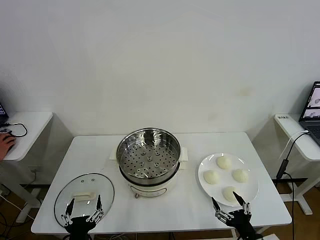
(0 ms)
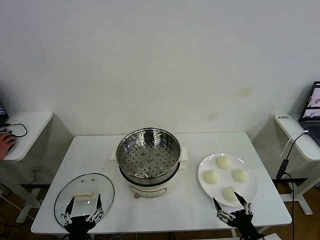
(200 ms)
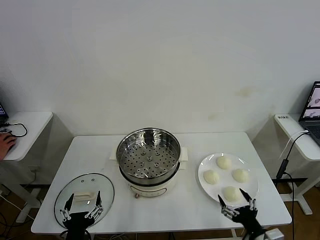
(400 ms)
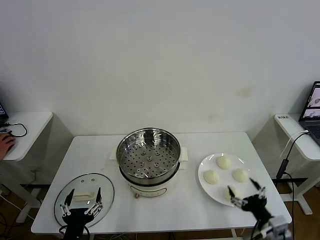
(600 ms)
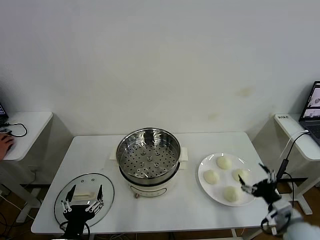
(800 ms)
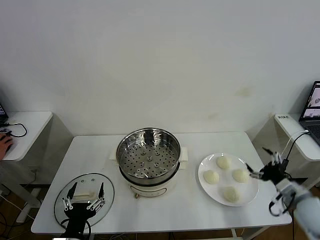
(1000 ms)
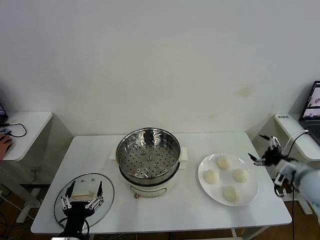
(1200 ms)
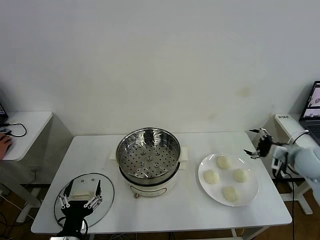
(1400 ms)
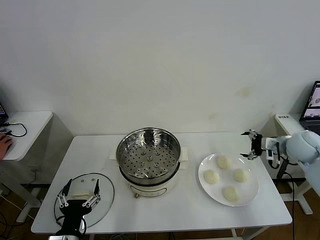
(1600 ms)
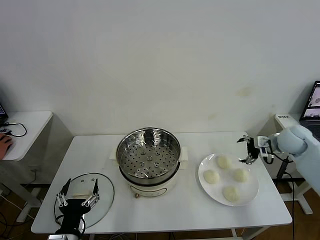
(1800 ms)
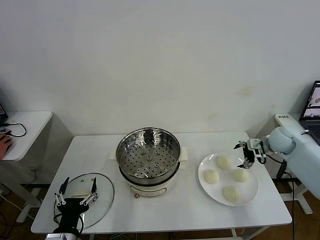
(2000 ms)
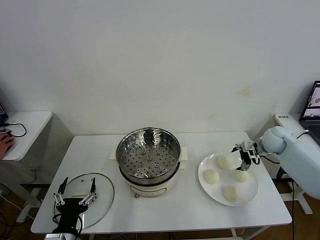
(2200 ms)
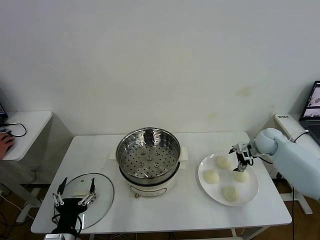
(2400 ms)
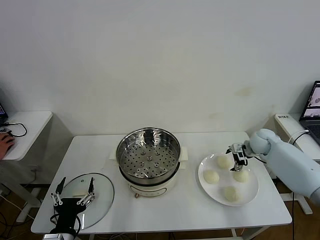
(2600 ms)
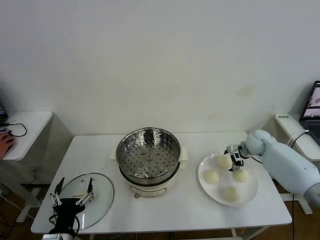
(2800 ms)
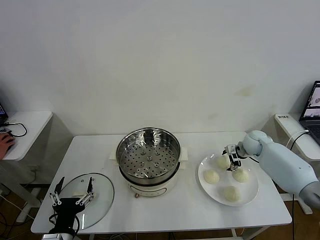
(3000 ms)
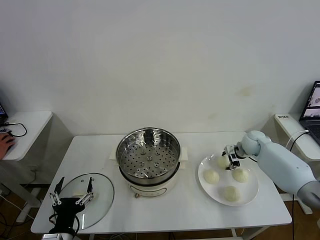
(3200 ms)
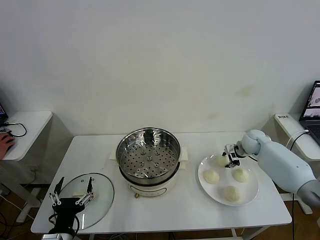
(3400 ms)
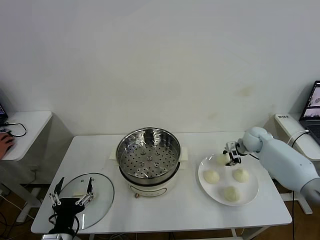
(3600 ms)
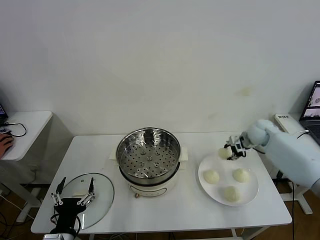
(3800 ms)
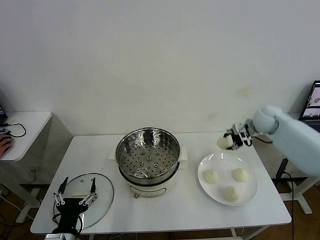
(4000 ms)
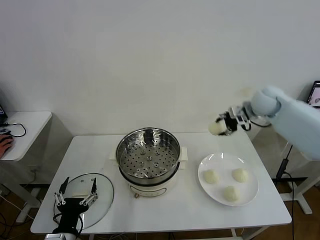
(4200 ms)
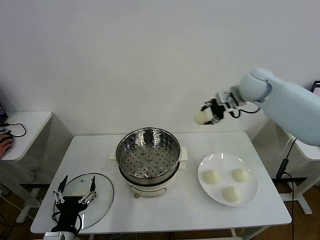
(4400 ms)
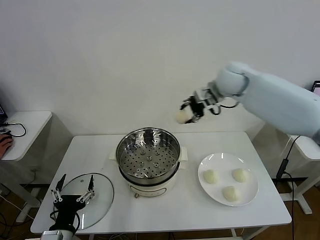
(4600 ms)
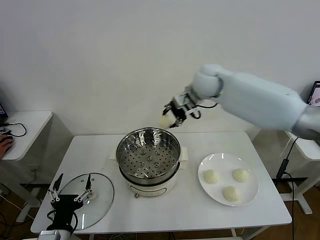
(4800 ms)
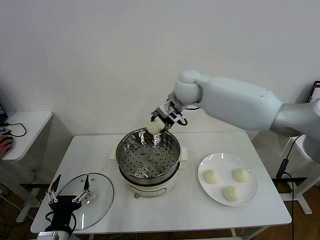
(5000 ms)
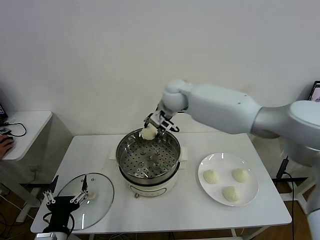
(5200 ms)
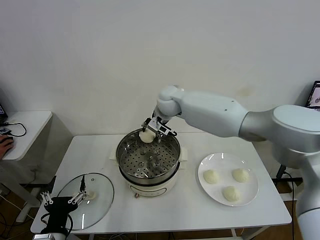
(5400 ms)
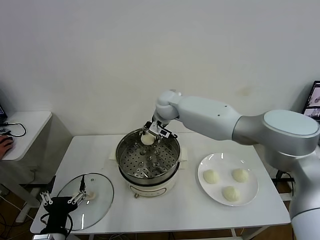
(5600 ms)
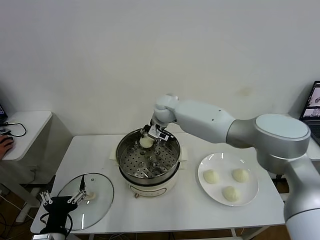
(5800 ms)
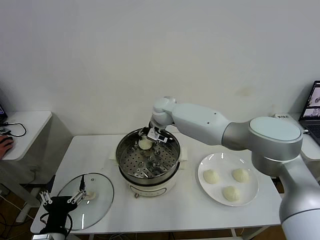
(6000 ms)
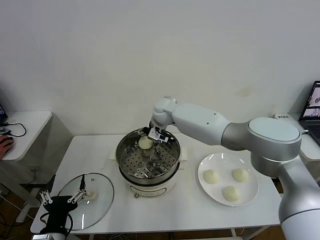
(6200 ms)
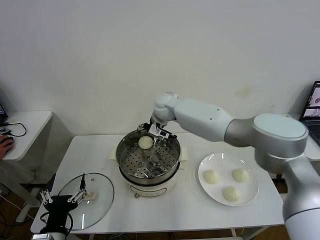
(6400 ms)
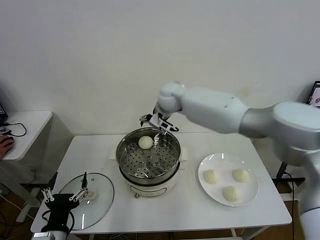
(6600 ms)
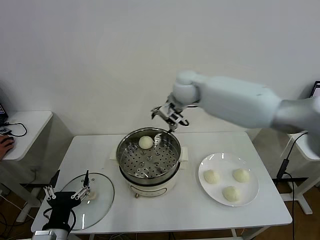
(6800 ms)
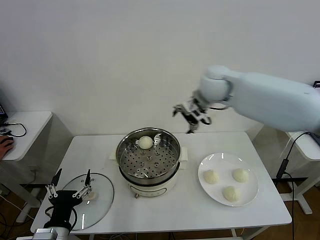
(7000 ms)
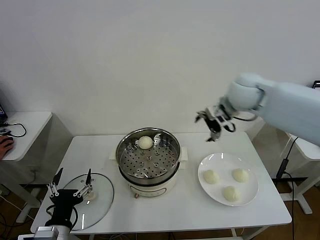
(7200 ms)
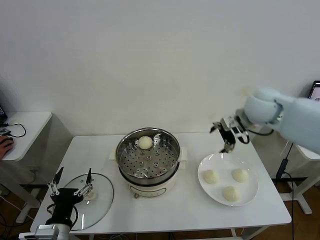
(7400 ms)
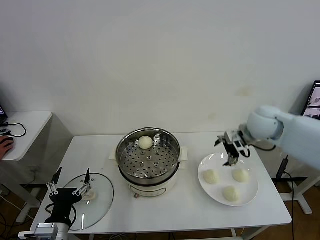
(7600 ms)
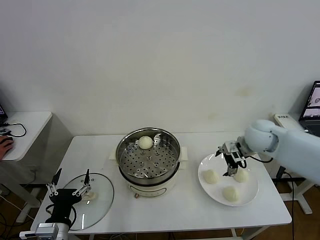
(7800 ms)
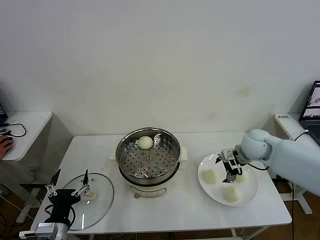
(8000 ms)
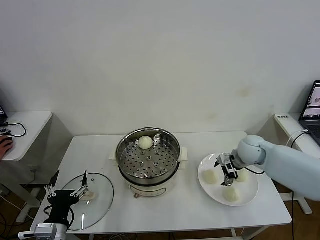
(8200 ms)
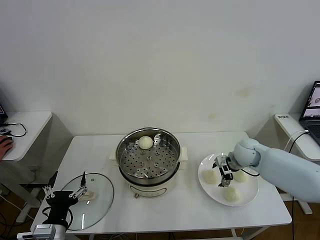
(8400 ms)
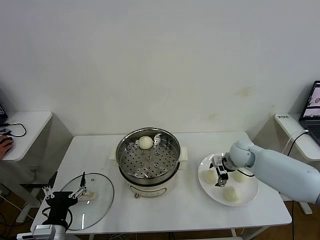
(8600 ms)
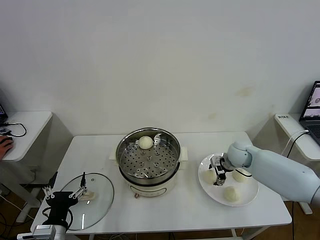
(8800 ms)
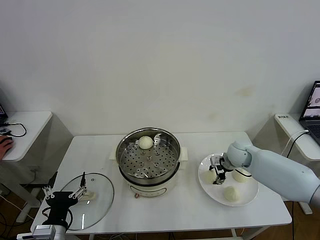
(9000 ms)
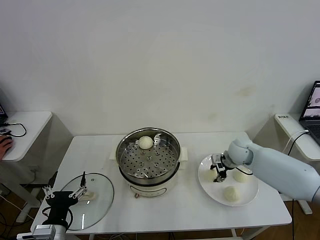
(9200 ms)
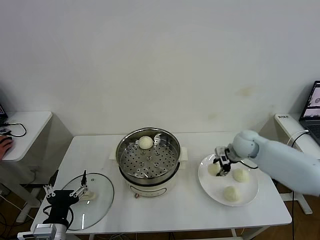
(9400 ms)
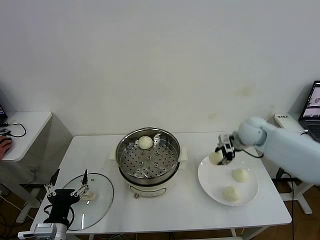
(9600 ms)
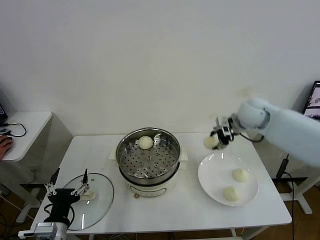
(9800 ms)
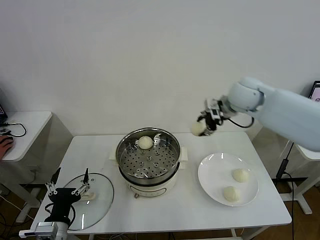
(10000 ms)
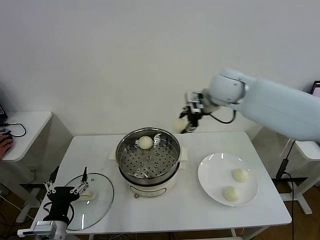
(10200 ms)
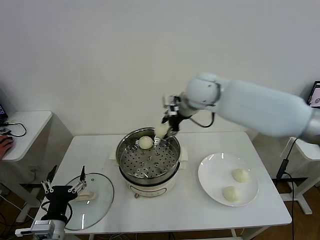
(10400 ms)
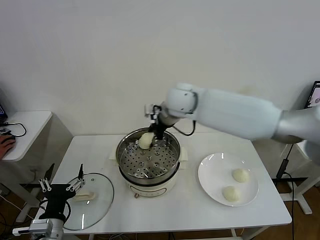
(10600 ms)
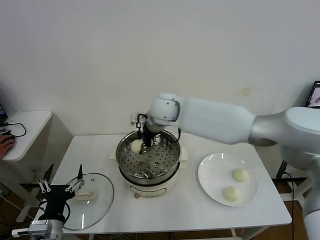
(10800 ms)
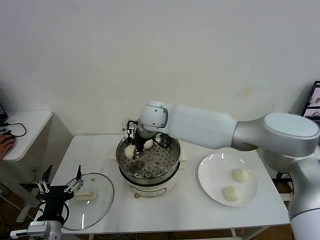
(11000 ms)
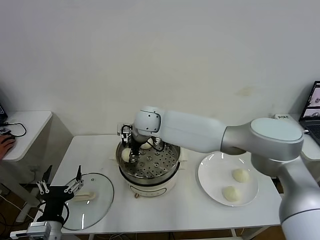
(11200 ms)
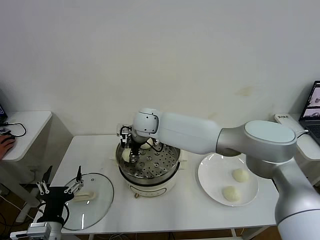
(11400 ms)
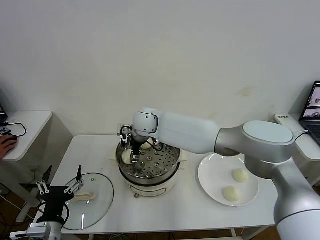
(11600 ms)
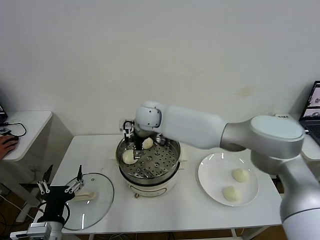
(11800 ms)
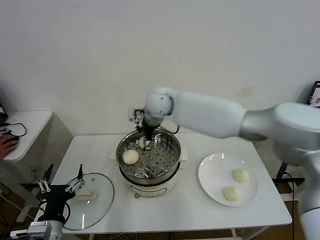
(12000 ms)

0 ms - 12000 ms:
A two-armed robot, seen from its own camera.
Task of the whole recording: take steamed baozi put them in steamer then cover it.
Step, 0 ms - 3200 ms: Grasp the baozi in the plate with right gripper.
Step, 3400 ms - 6200 ms: Place the baozi on the steamer with right gripper.
Step, 6400 ms - 9000 ms: Grasp the baozi in the plate with right gripper.
Step, 9200 ms - 11600 ms: Place the baozi on the steamer with right gripper.
1600 ms - 3000 ms: The right gripper heads downward, forward and to the left, covering about 15 cm.
3000 ms - 4400 ms: The right gripper shifts roughly 30 cm upward and to the left, and closes its fingers.
4400 ms - 6000 ms: The right gripper travels to the left and downward by some 25 cm, and opens its fingers.
6000 ms - 7600 ms: The right gripper goes roughly 30 cm to the right and backward, and opens up.
7600 ms - 9000 ms: The right gripper shifts about 15 cm downward, and closes up.
9000 ms - 10400 ms: The right gripper shifts roughly 30 cm upward and to the left.
10400 ms - 12000 ms: The right gripper is displaced to the left by about 5 cm, and opens up.

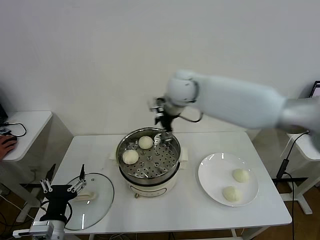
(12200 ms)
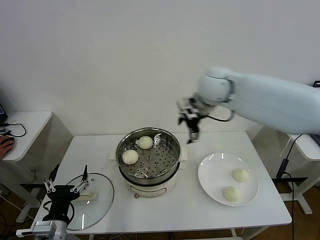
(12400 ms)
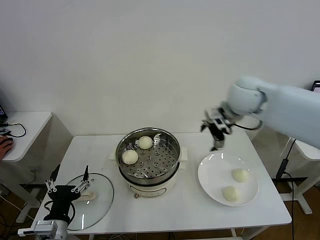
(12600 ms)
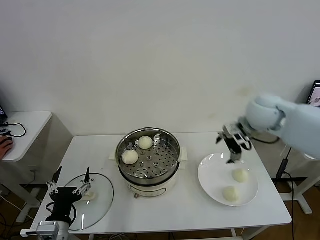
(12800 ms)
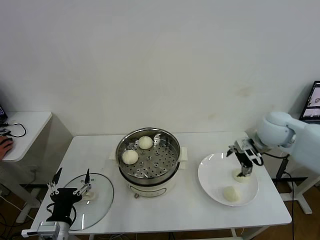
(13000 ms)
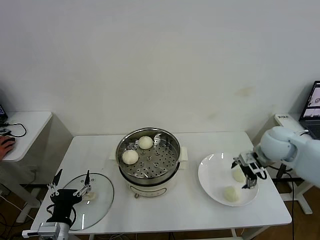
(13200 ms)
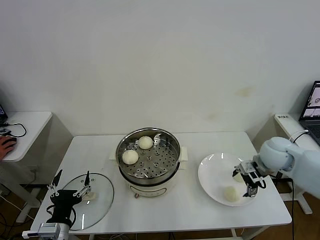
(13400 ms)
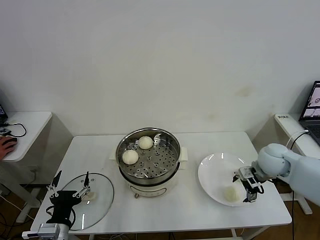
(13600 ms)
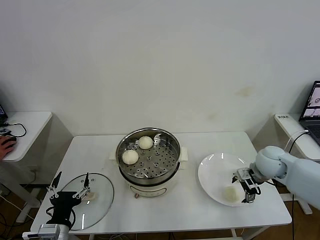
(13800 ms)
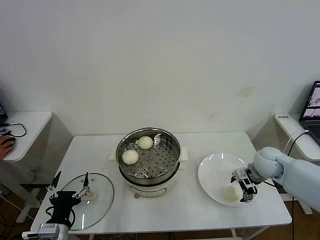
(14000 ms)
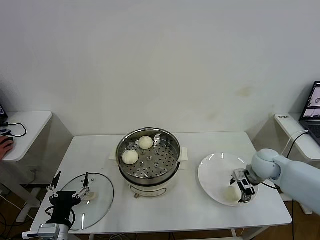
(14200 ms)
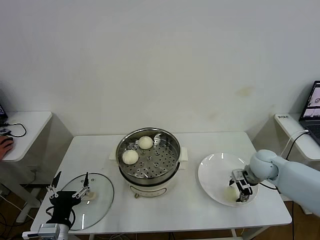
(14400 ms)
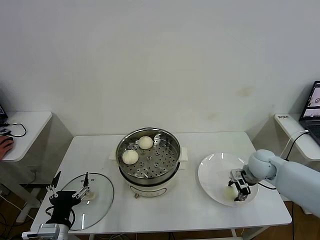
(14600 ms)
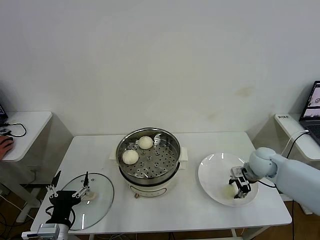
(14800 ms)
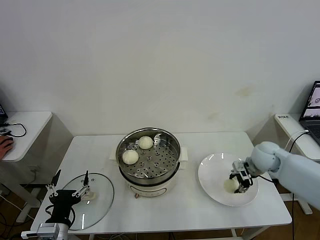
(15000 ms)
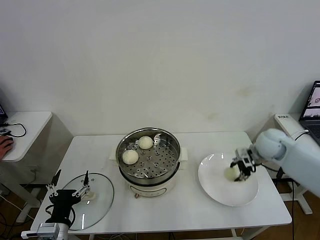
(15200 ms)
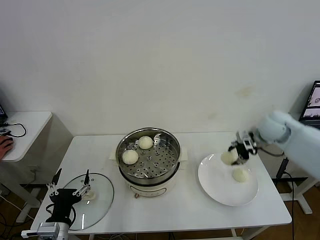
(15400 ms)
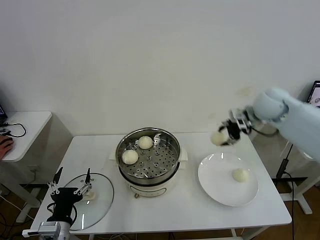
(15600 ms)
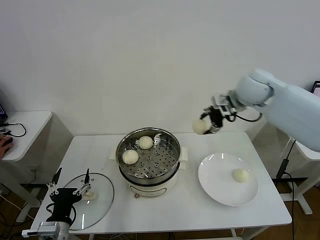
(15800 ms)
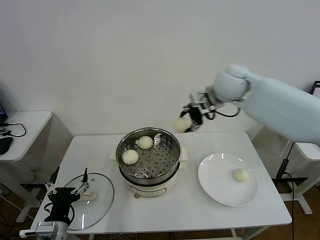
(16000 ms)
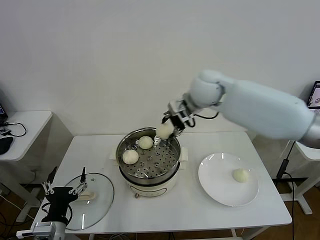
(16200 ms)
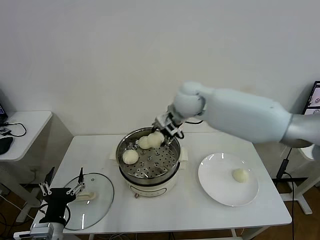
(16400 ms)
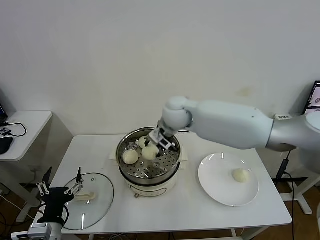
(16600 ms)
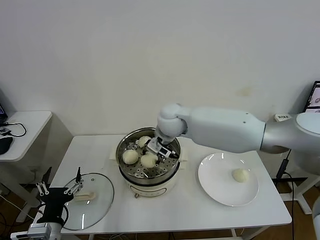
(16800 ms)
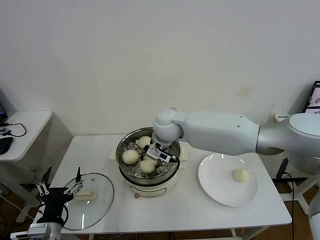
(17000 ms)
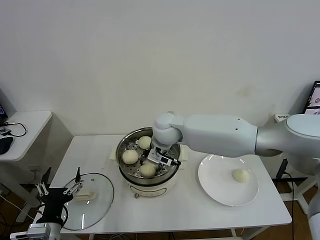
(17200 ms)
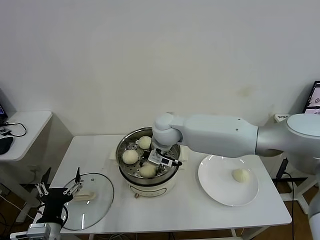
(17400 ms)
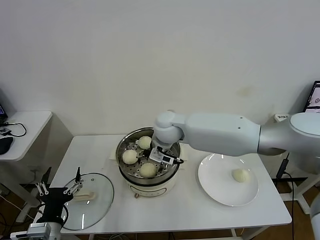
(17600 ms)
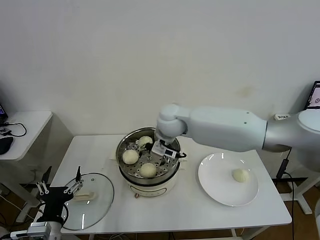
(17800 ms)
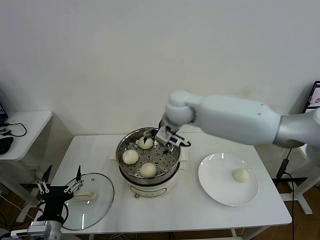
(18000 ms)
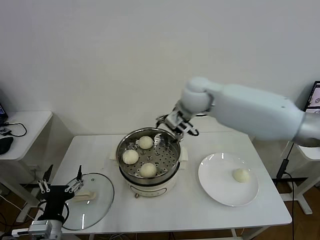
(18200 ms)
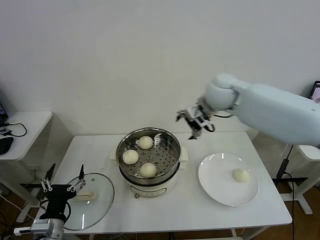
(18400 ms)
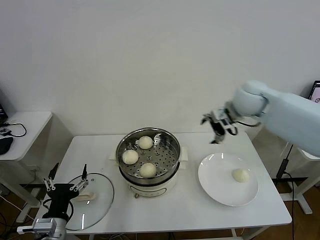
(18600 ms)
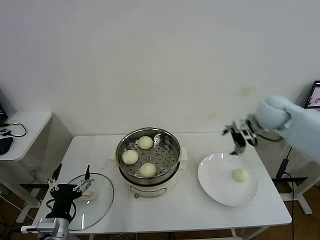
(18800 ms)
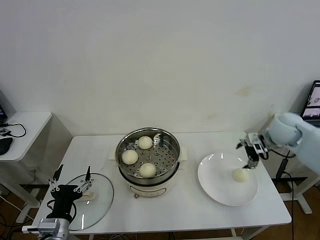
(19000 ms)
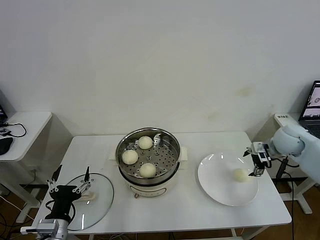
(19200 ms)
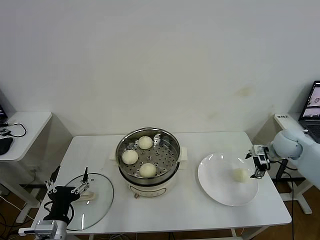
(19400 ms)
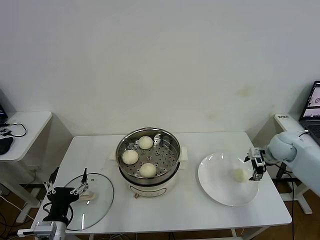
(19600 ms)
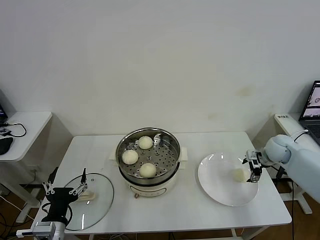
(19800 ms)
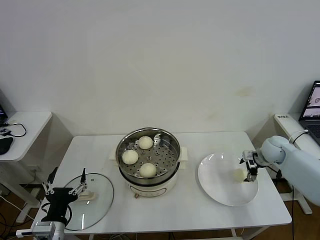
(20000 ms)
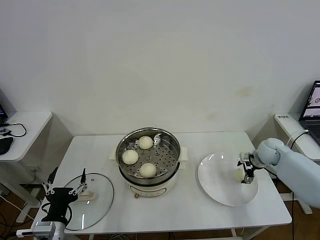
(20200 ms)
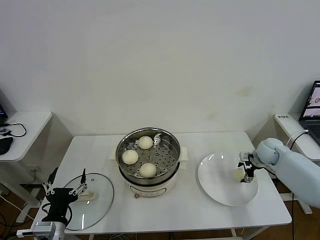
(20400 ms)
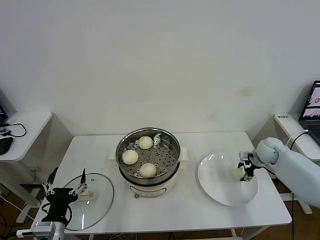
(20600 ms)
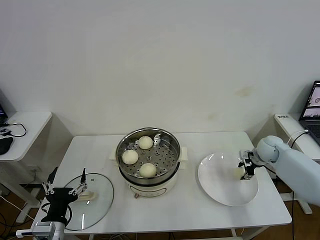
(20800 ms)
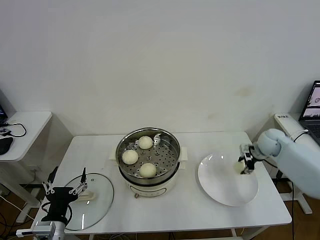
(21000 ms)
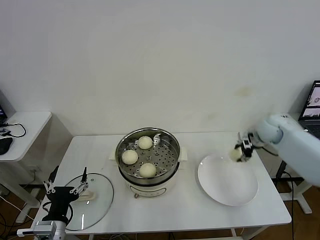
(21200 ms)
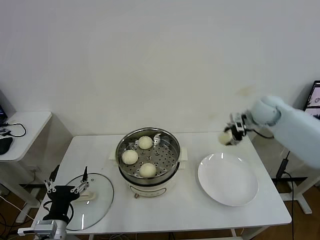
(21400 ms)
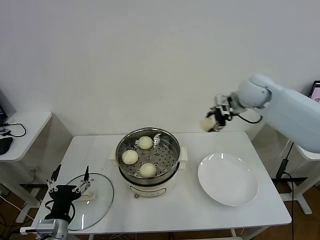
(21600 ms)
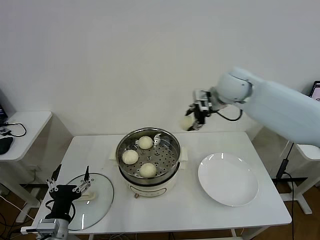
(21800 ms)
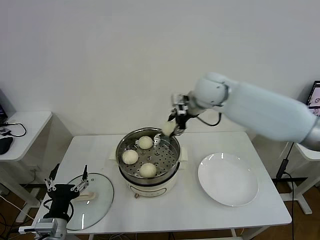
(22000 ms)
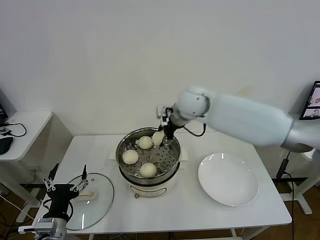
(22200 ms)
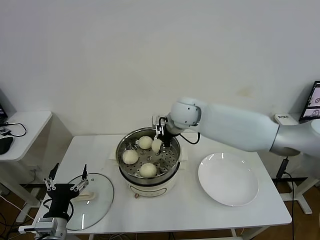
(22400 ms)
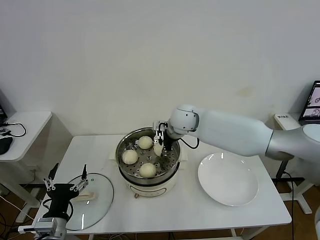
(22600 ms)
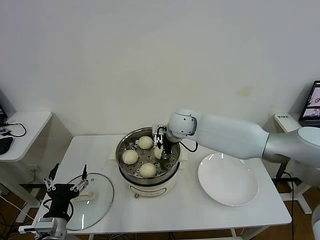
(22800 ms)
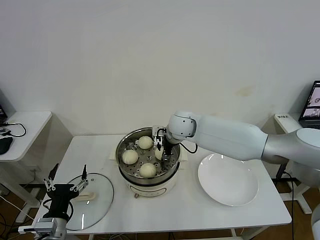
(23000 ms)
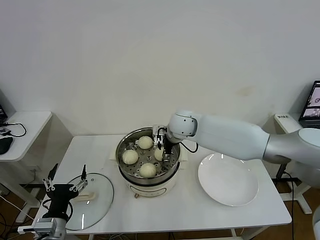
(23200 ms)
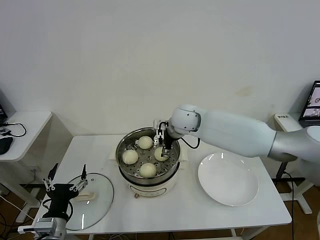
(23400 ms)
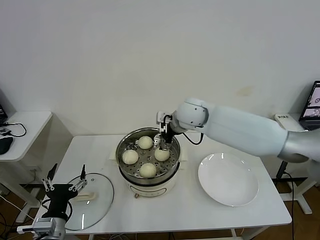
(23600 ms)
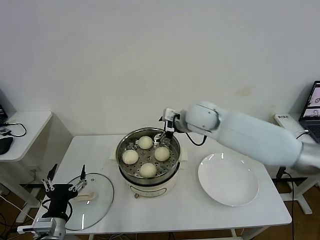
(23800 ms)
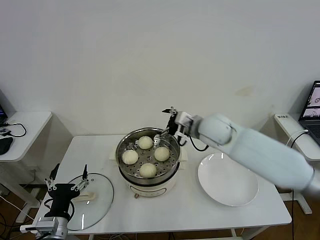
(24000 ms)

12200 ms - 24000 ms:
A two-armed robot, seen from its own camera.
Task of the whole recording: take steamed baozi put them in steamer then cover it.
Step, 12200 ms - 14600 ms: Grasp the baozi in the plate with right gripper.
Step, 14800 ms - 17600 ms: Place the baozi on the steamer with right gripper.
Step, 17800 ms - 20600 ms: Grasp the baozi in the plate with right gripper.
Step, 20800 ms - 23200 ms: Place the baozi on the steamer with right gripper.
12200 ms - 13600 ms: The right gripper travels to the right, downward and backward by approximately 35 cm.
13600 ms - 15200 ms: The right gripper goes about 5 cm forward, and closes.
15200 ms - 16600 ms: The right gripper is displaced to the left by some 35 cm.
16600 ms - 18200 ms: The right gripper is displaced to the right and upward by roughly 10 cm, and opens up.
18200 ms - 19600 ms: The right gripper travels to the right and downward by about 35 cm.
19600 ms - 21000 ms: The right gripper closes up.
21000 ms - 22600 ms: The right gripper goes about 35 cm to the left.
22600 ms - 24000 ms: The right gripper goes roughly 10 cm to the right and backward, and opens up.
